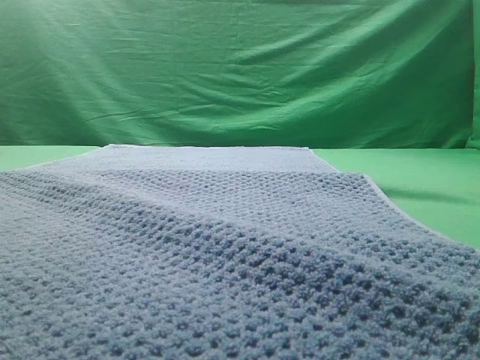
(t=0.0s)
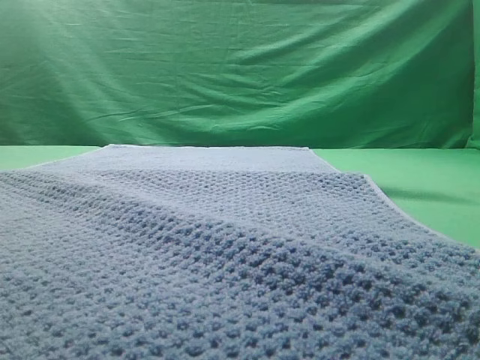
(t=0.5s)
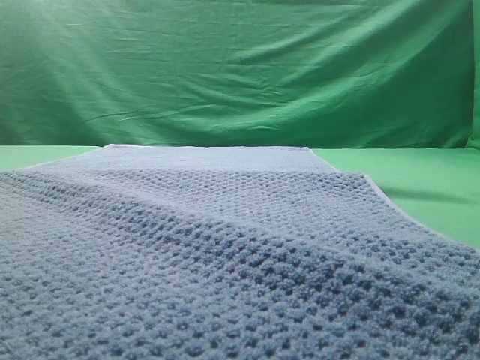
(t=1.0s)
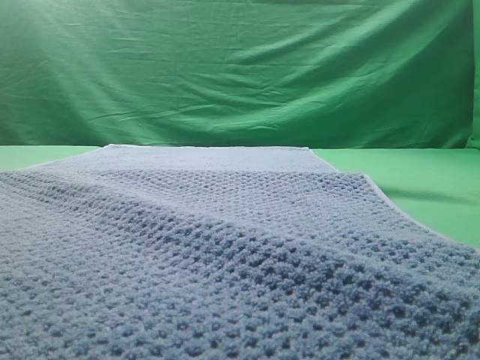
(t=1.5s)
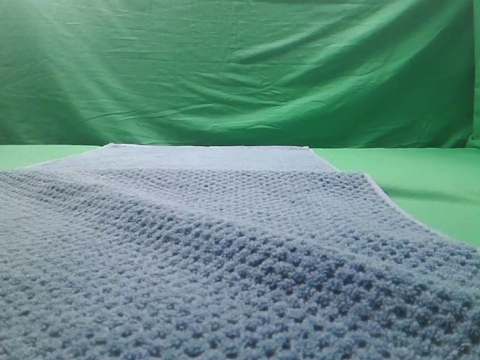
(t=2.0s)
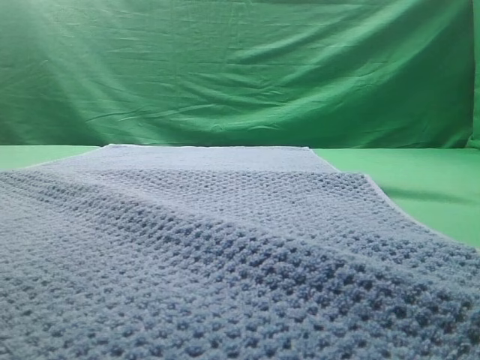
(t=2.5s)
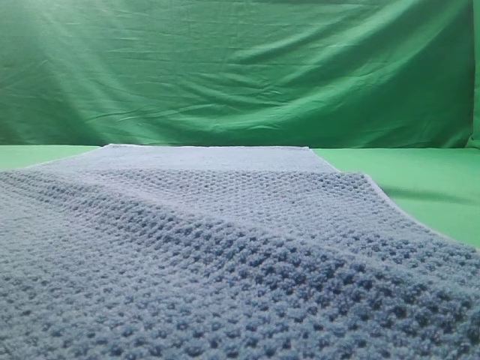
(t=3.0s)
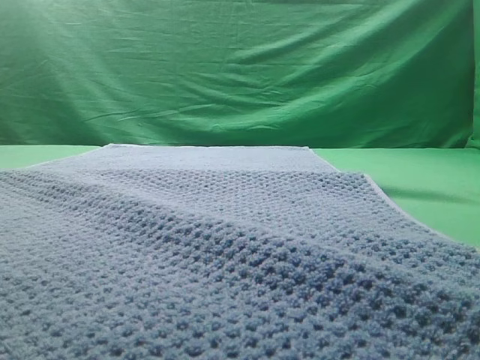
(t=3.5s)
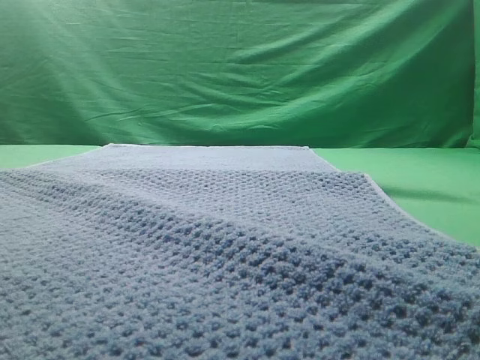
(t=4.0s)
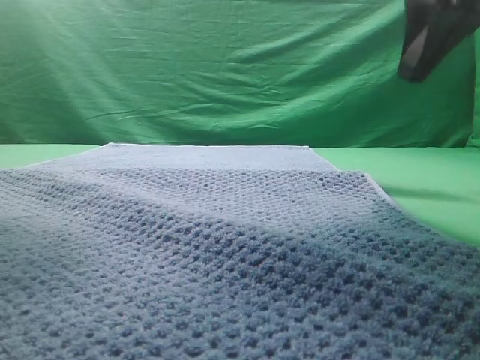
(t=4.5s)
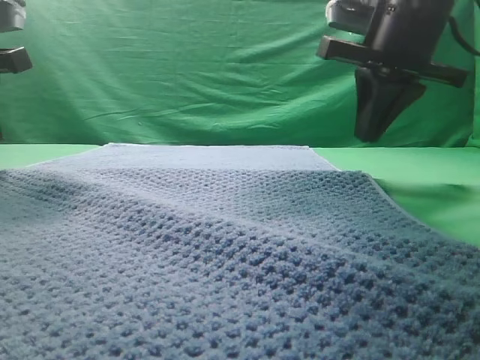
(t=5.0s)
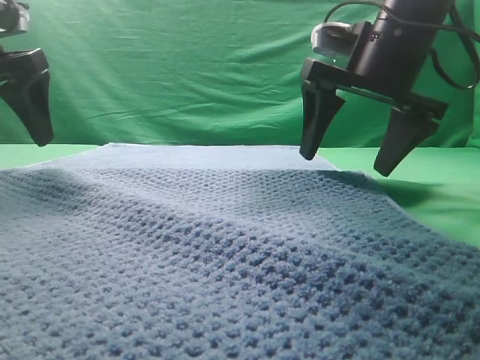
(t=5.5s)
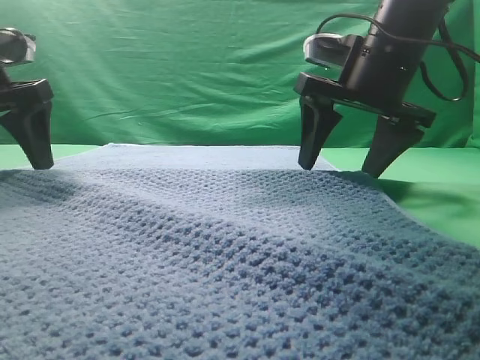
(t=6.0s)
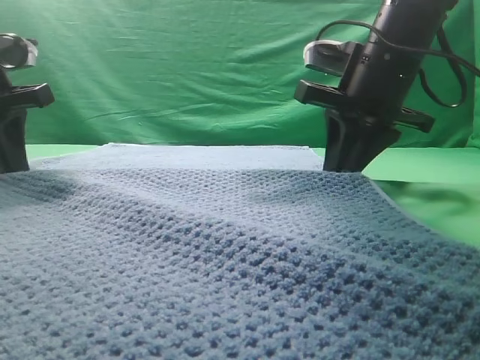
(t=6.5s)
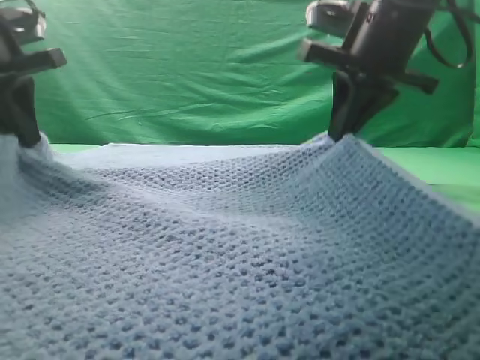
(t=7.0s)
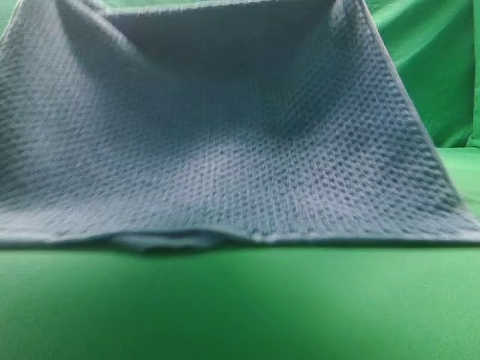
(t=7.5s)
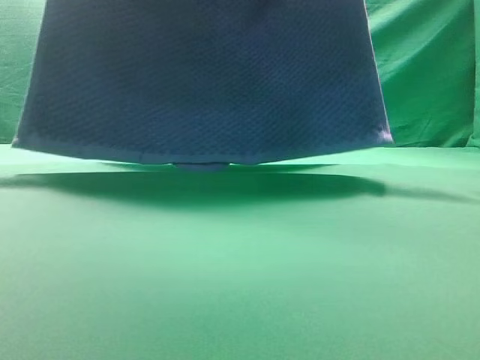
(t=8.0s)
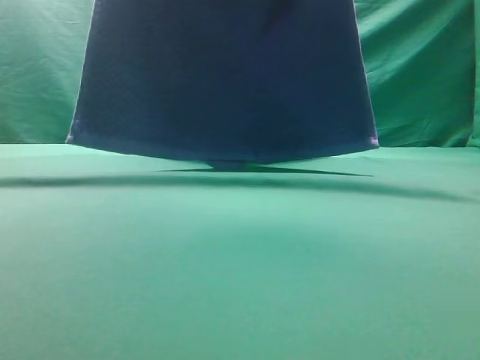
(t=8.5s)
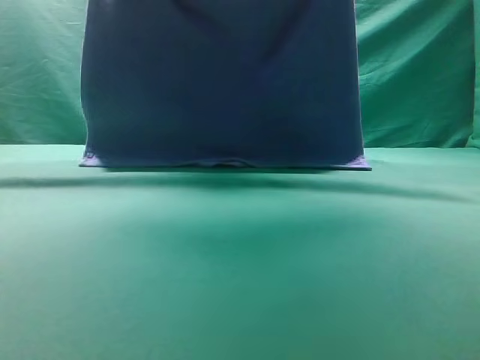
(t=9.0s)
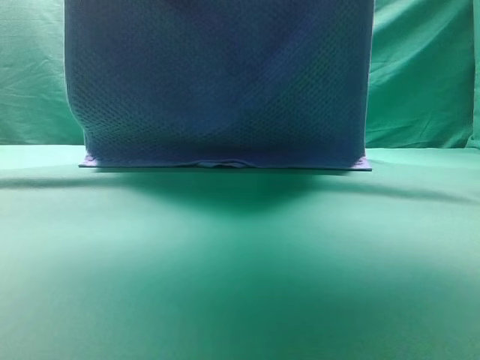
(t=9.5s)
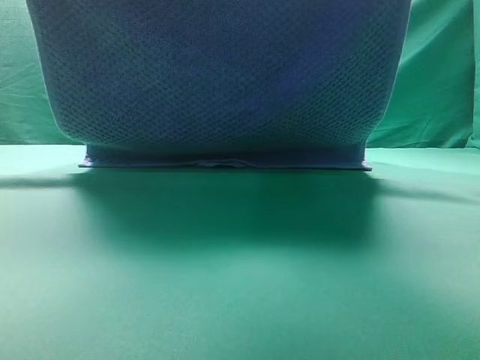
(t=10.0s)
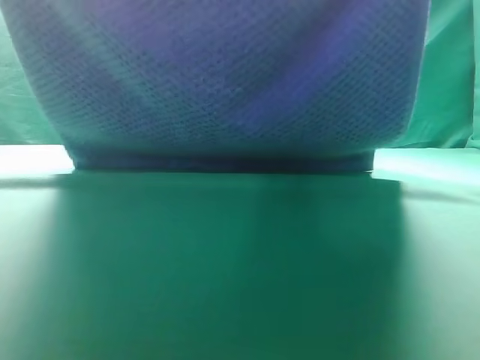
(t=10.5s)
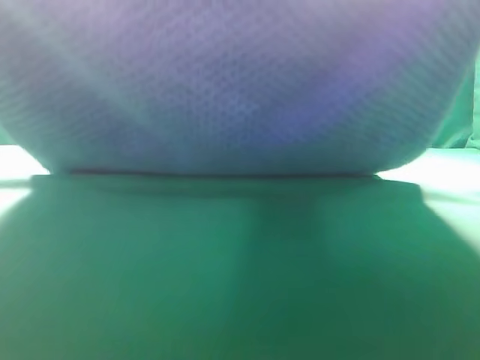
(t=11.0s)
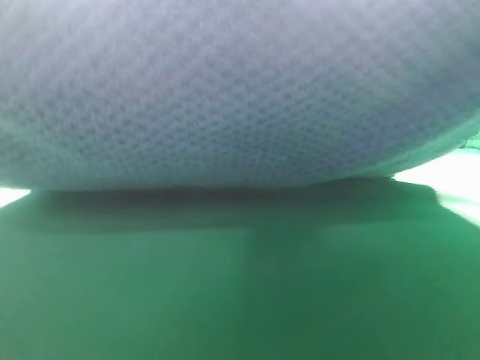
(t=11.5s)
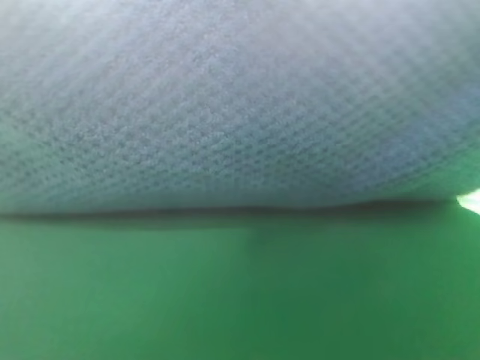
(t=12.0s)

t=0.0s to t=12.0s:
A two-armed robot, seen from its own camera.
Task of the whole recording: fold the towel on the table twice.
Step, t=0.0s to t=8.0s: pick up the towel with two arm.
